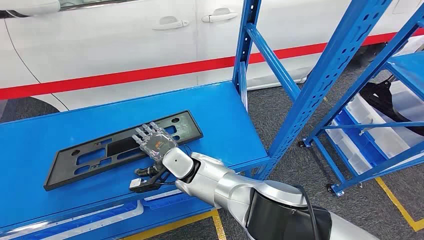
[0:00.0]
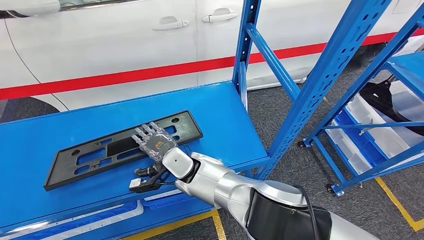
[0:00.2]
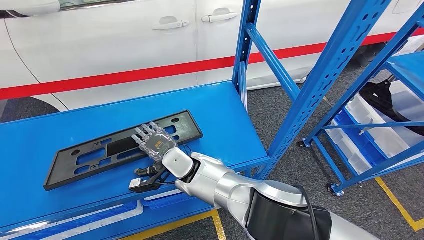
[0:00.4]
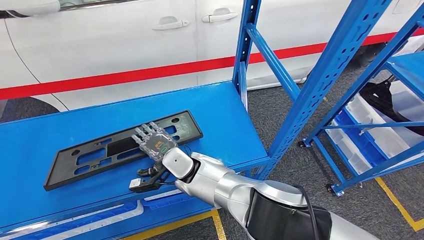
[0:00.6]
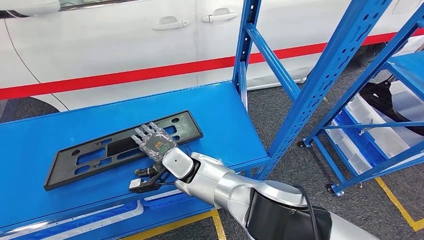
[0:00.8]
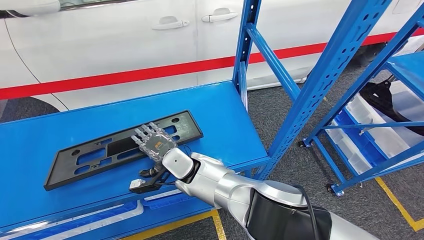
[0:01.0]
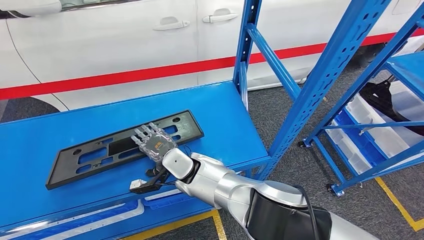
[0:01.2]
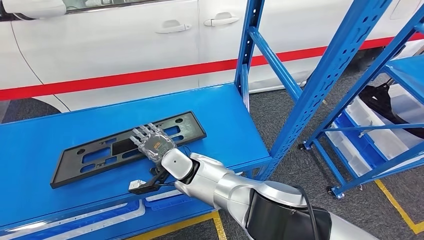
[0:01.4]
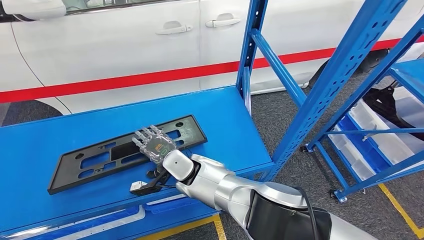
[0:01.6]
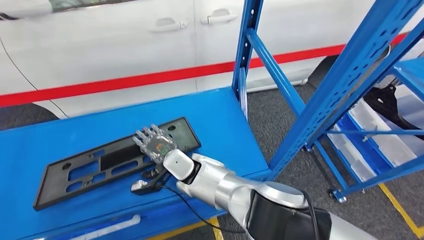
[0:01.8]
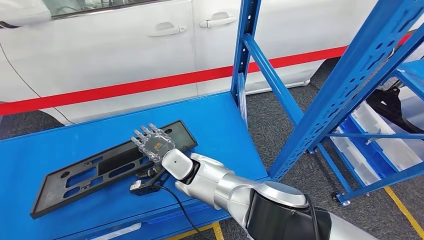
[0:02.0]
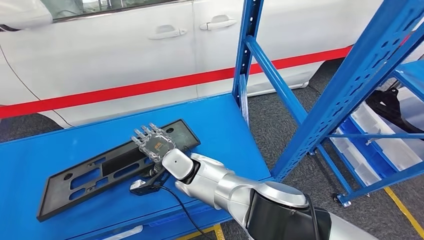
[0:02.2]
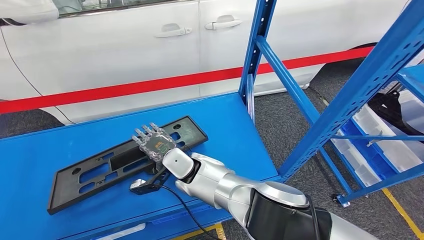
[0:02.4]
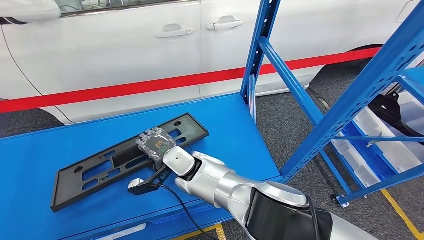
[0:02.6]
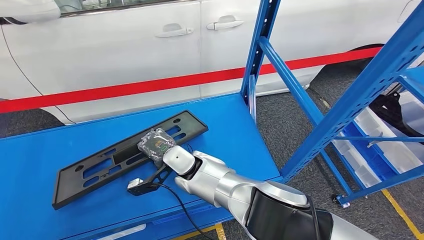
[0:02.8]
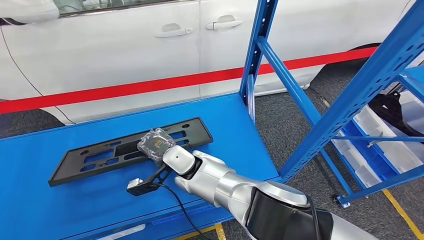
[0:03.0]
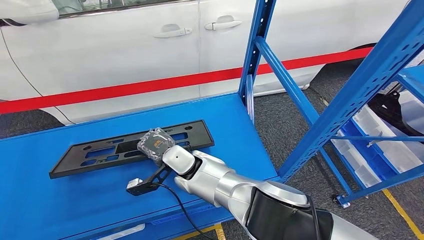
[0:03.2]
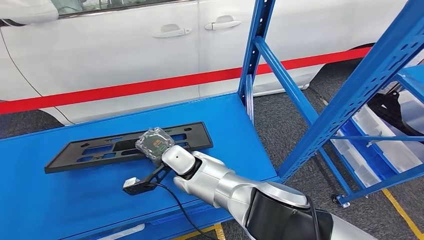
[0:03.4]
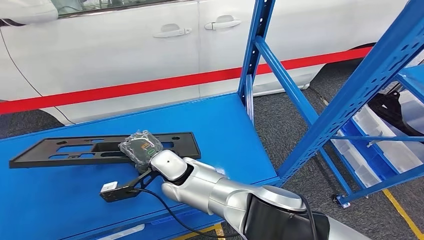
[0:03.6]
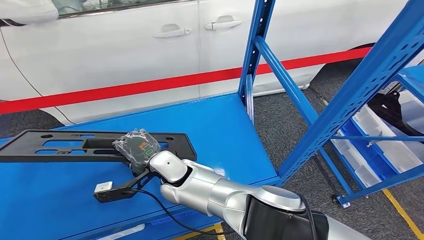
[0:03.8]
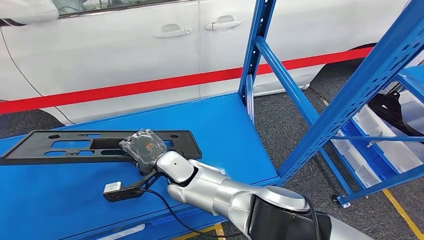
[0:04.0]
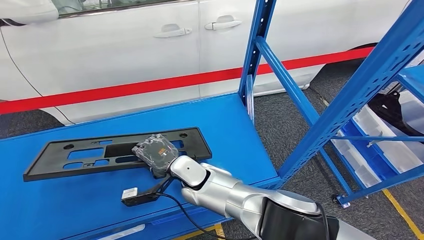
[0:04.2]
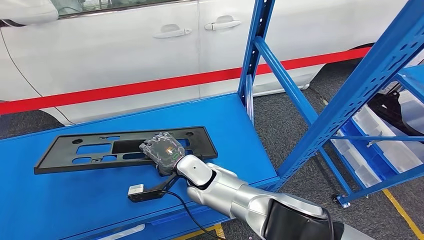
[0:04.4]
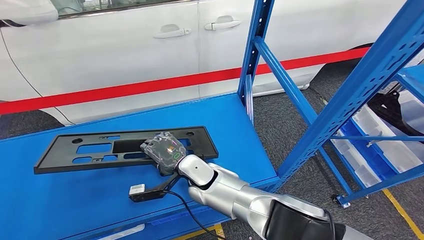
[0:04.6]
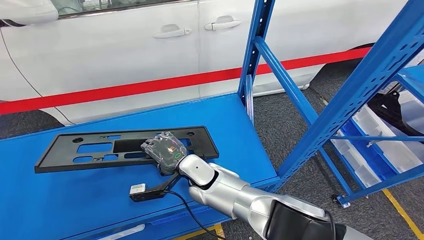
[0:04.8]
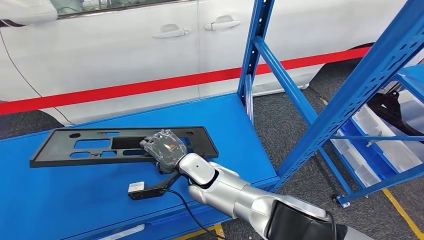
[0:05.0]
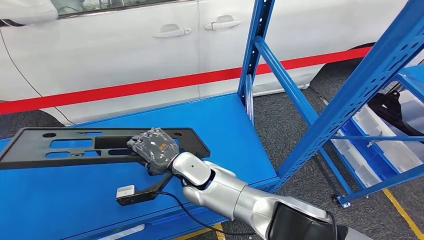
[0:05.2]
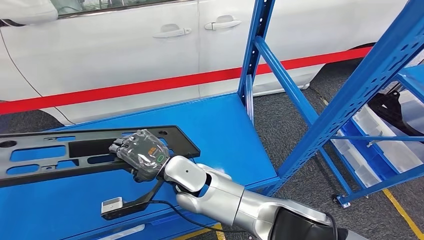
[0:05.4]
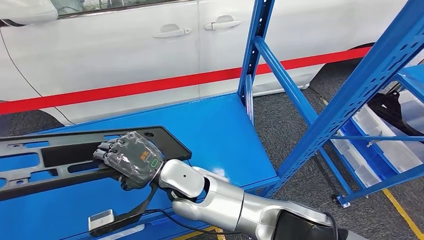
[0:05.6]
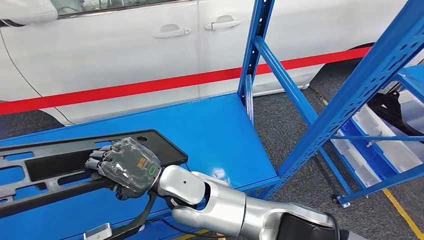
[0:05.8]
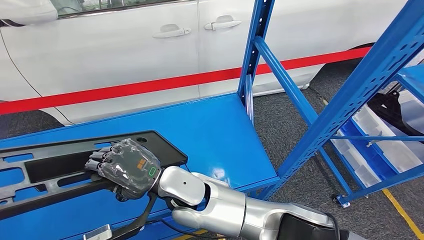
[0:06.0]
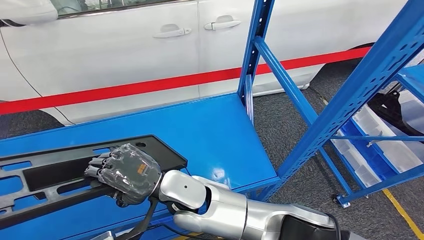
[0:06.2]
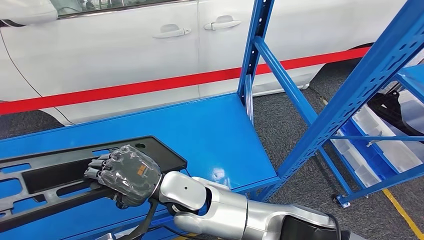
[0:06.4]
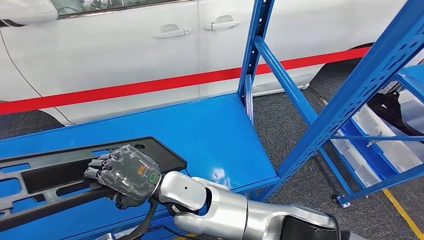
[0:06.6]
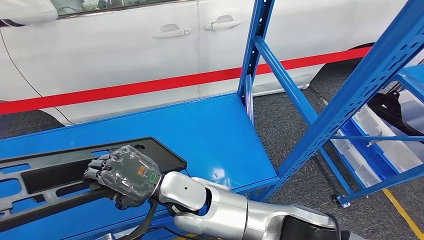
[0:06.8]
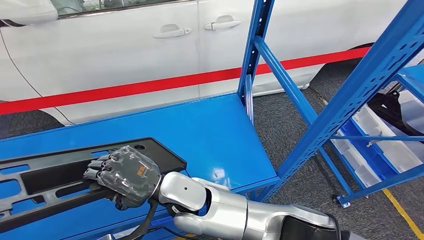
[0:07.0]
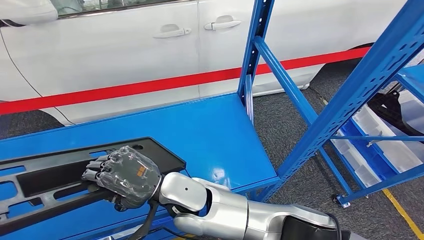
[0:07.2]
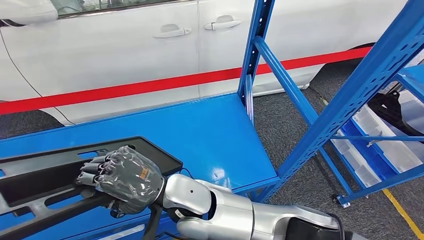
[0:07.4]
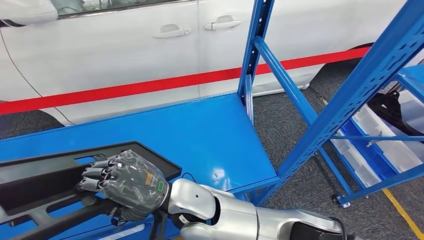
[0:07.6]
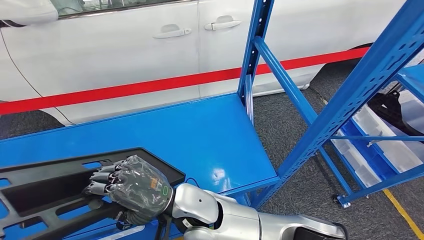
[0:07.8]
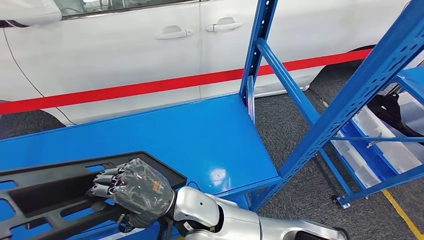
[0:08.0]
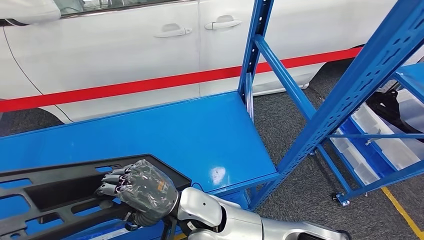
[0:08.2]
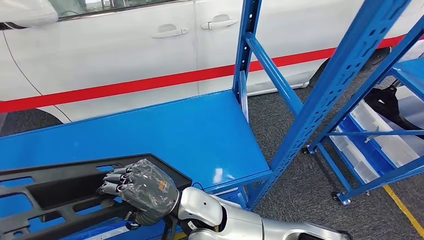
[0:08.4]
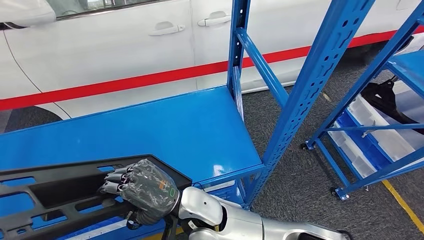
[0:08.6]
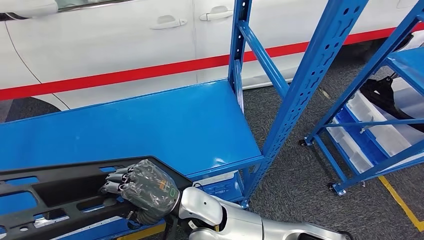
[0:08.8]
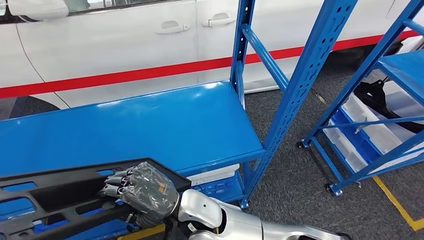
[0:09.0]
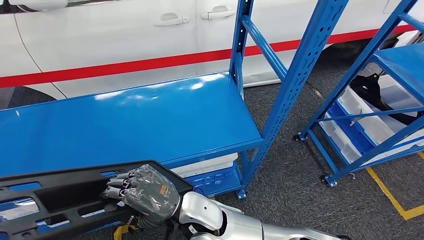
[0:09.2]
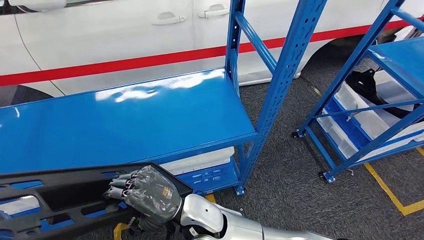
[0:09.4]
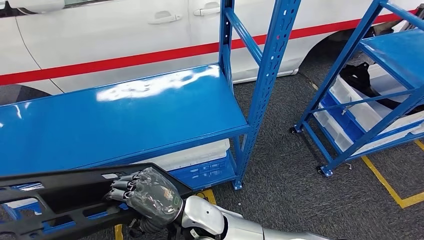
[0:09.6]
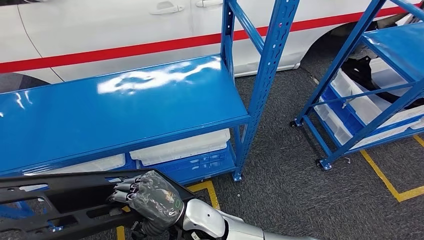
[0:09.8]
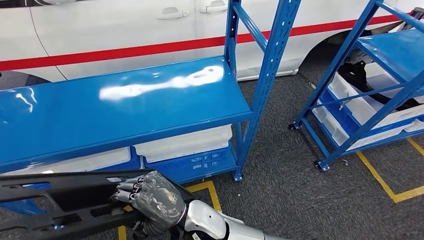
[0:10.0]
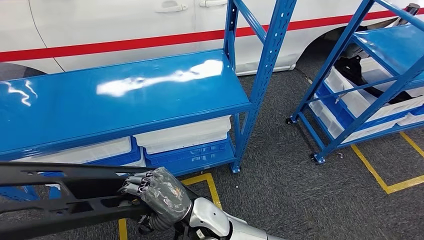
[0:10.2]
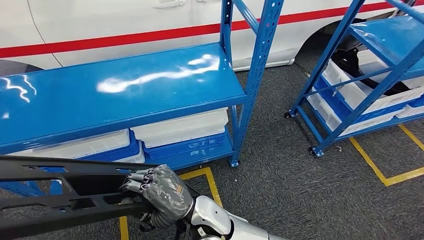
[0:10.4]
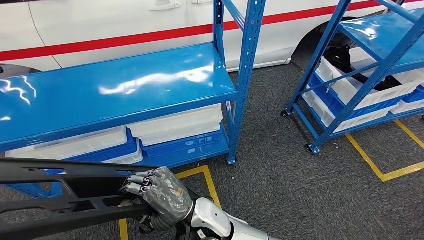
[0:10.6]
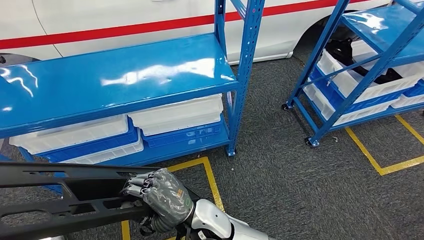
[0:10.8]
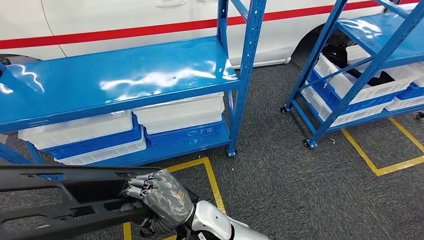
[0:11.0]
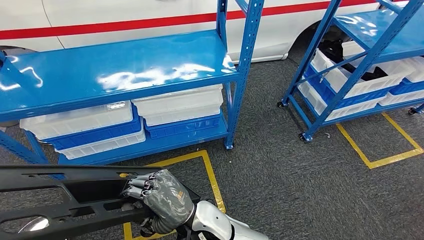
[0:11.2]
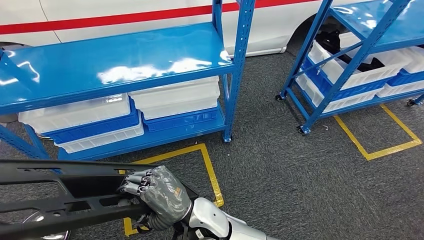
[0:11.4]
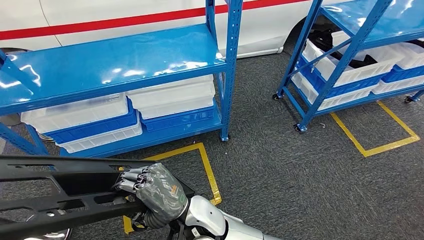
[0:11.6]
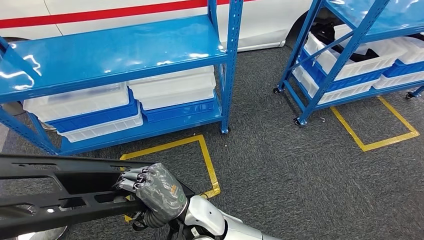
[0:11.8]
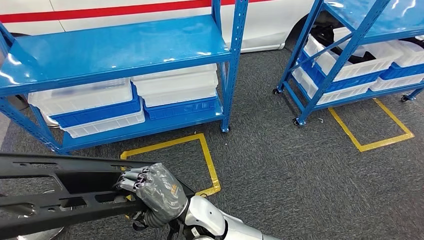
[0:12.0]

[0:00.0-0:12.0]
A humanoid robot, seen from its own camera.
Step, 0:00.0 to 0:05.6: Pick up the large parts from the shelf.
0:04.4 to 0:06.0: The right hand shifts about 10 cm upward and backward.
0:06.0 to 0:07.6: There are only small adjustments of the hands.

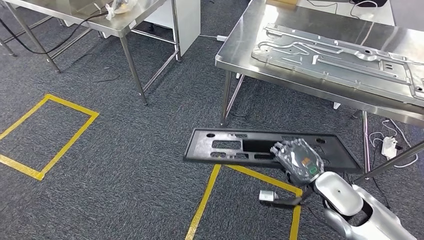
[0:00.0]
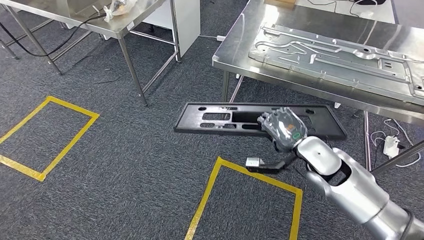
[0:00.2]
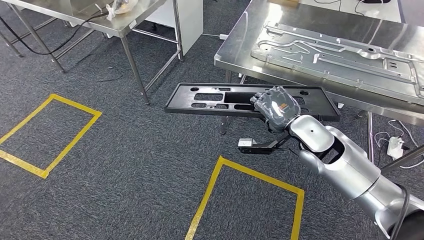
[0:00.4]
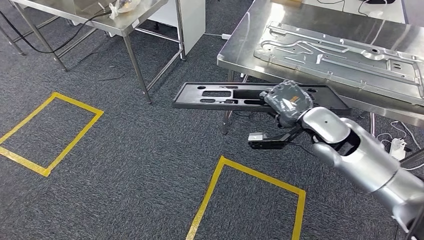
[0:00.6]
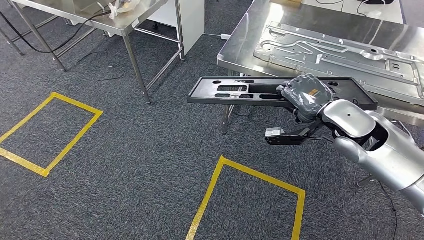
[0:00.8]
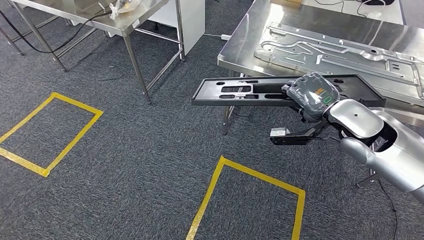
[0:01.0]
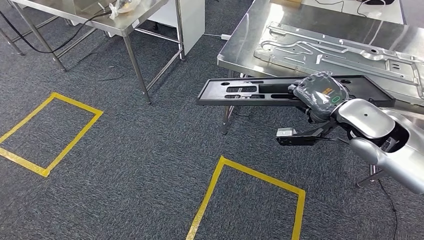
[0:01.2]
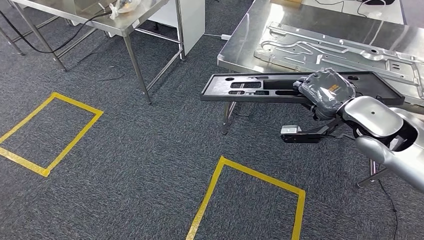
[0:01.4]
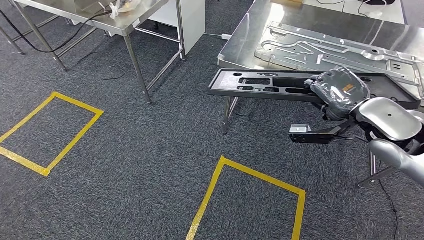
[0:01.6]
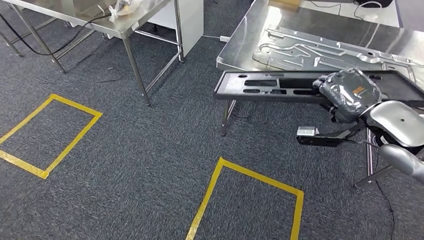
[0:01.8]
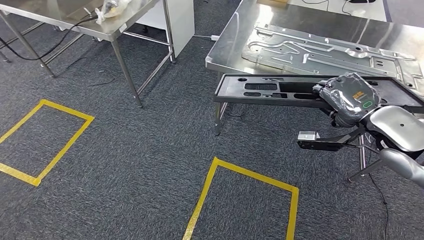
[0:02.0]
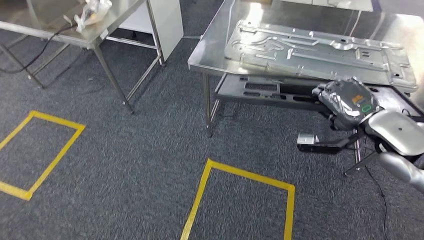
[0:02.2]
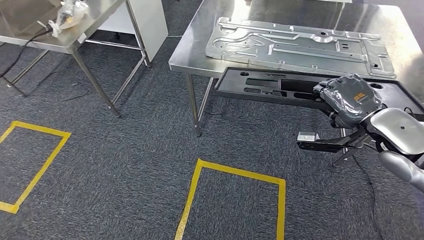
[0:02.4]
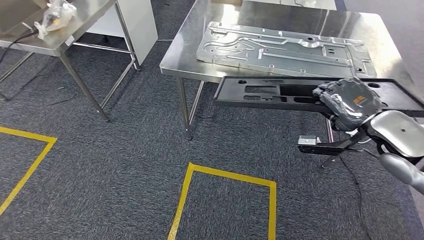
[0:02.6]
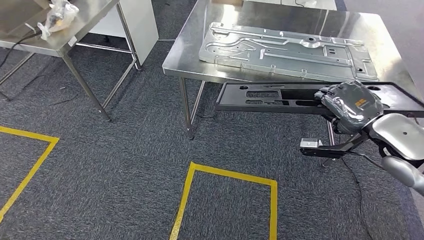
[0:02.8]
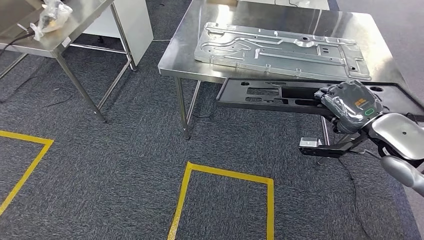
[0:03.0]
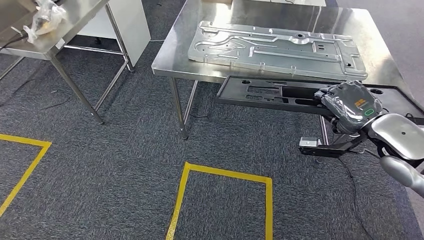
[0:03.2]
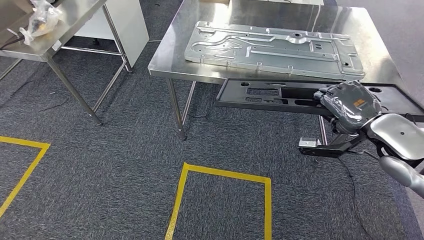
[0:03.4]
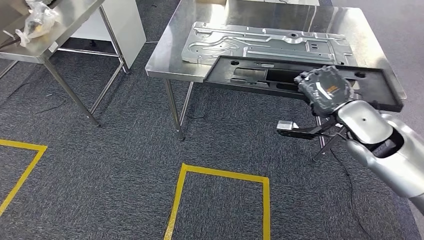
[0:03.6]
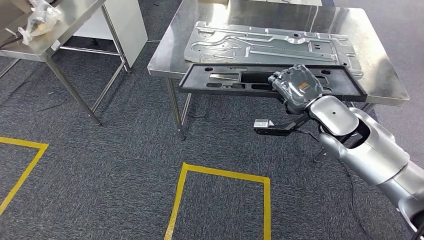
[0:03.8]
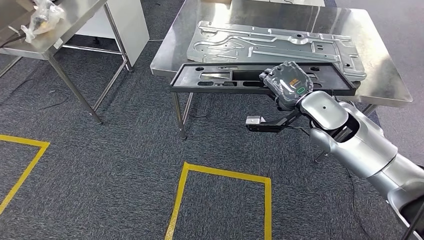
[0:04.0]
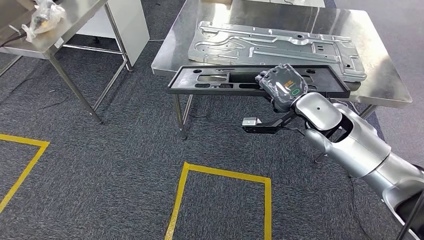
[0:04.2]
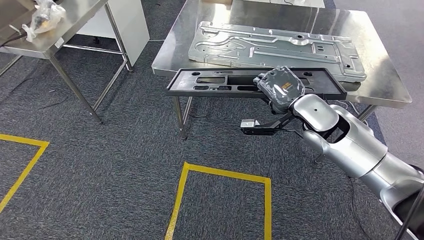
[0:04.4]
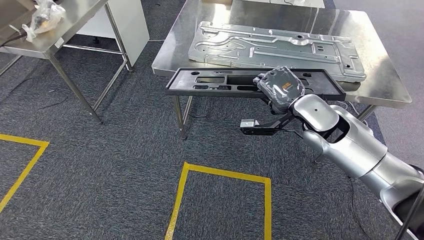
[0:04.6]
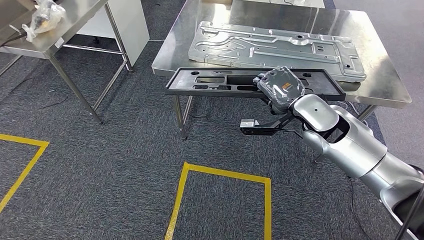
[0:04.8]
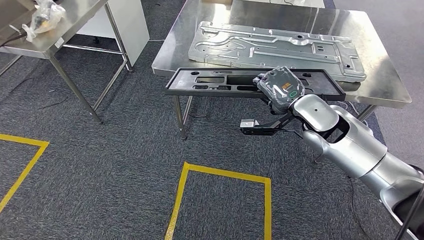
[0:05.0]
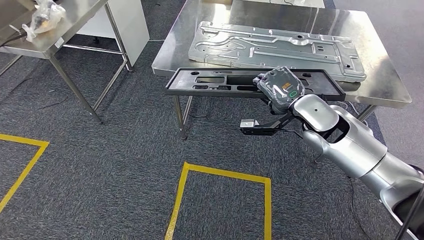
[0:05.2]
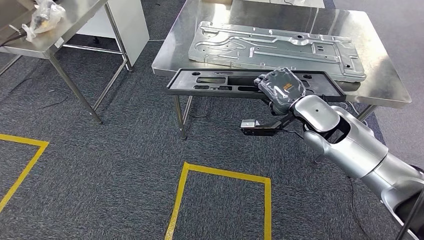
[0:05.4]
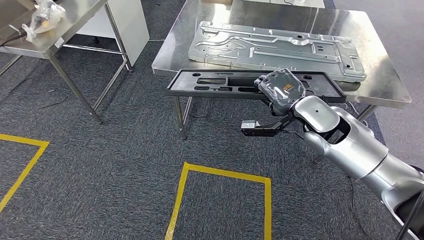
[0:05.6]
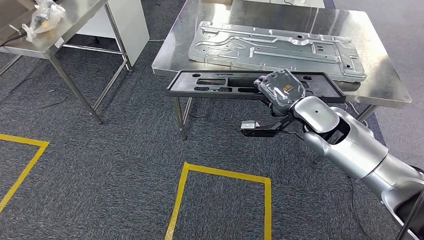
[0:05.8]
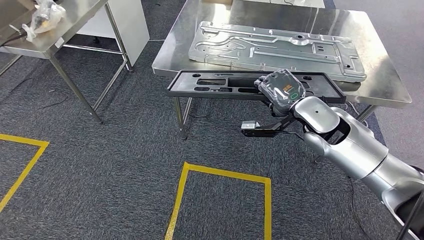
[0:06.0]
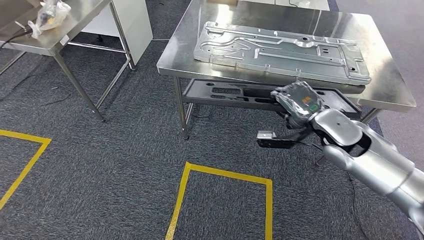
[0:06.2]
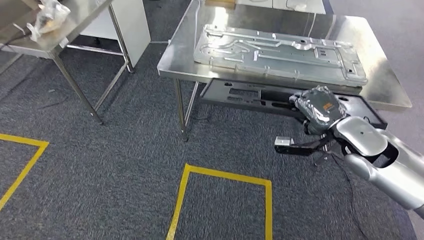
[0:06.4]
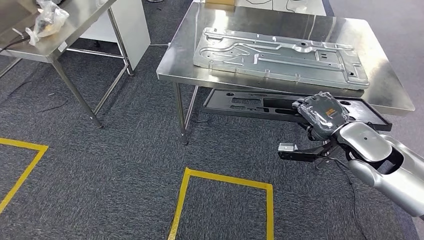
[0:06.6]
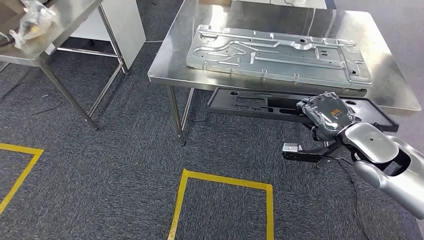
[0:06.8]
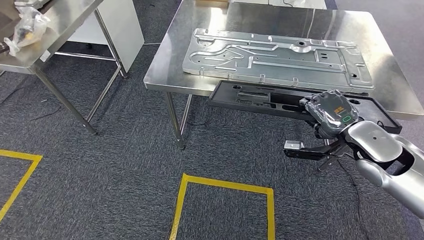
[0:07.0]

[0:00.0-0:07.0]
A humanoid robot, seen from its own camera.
Step, 0:00.0 to 0:04.2: Move the large parts to the workbench.
0:04.2 to 0:05.6: Both hands stay put.
